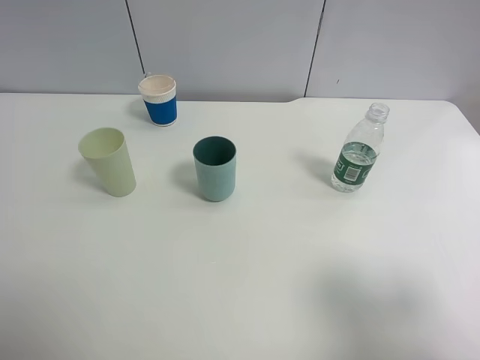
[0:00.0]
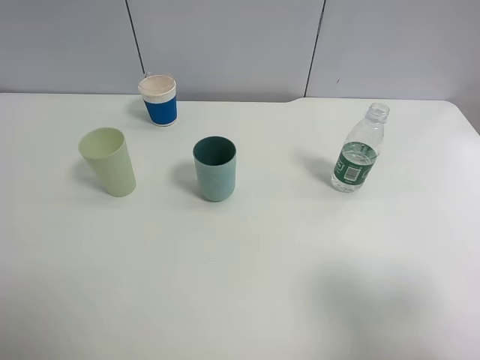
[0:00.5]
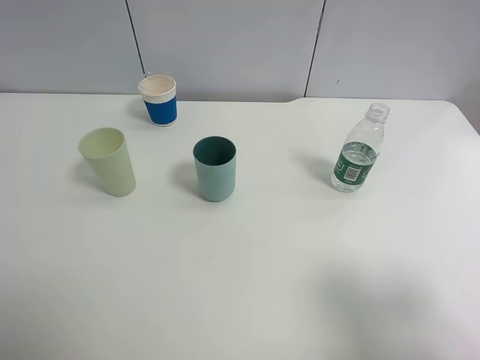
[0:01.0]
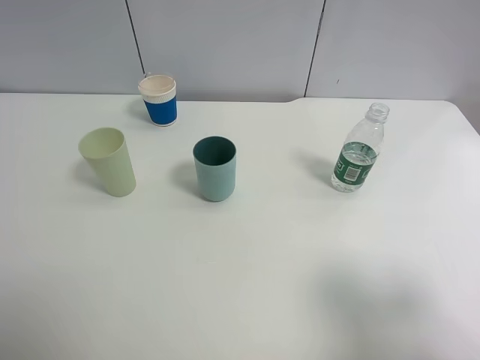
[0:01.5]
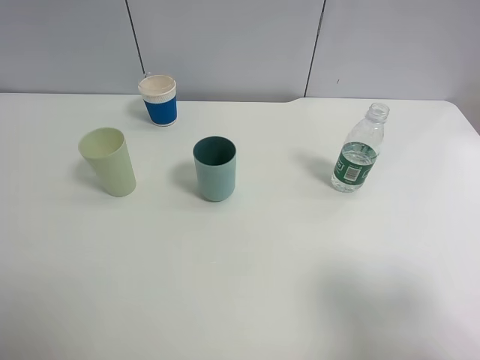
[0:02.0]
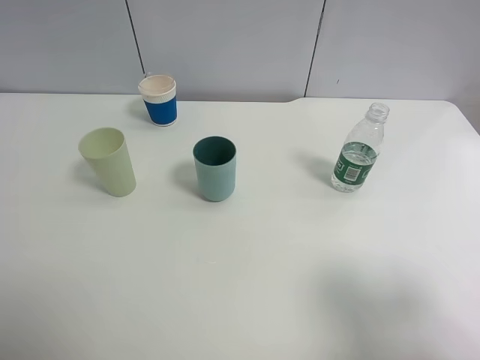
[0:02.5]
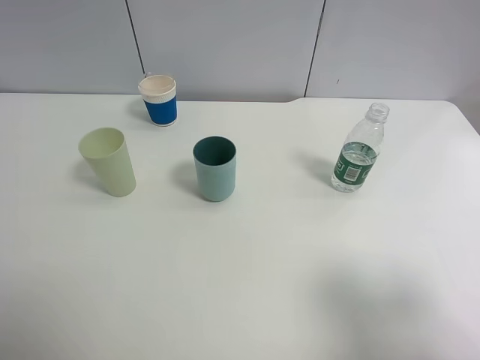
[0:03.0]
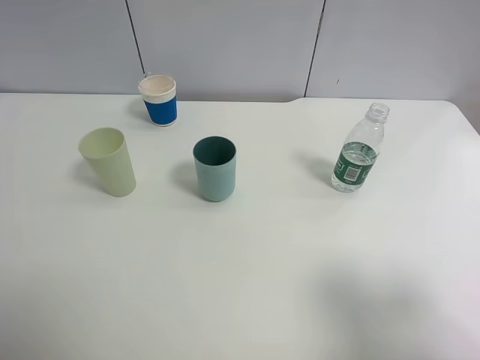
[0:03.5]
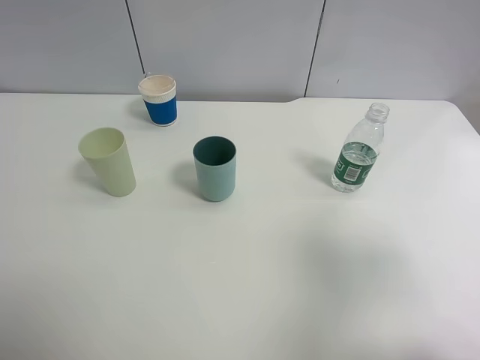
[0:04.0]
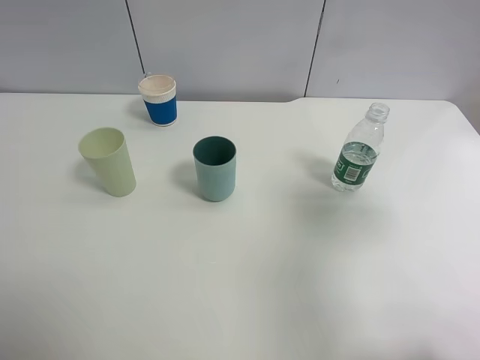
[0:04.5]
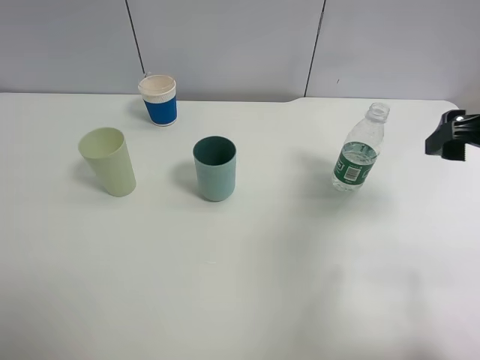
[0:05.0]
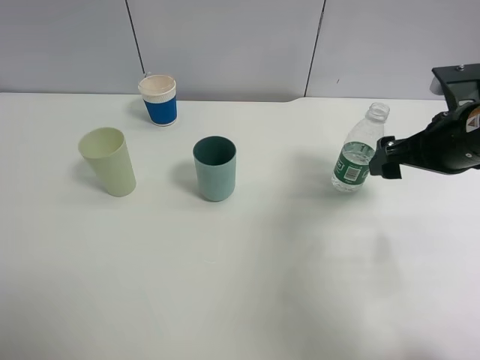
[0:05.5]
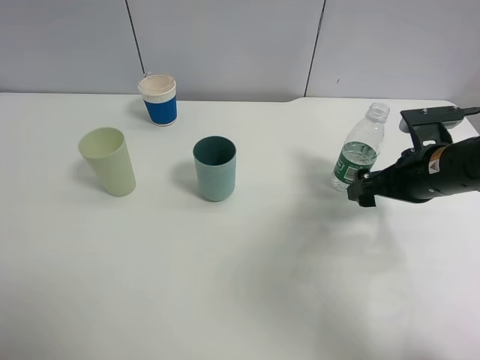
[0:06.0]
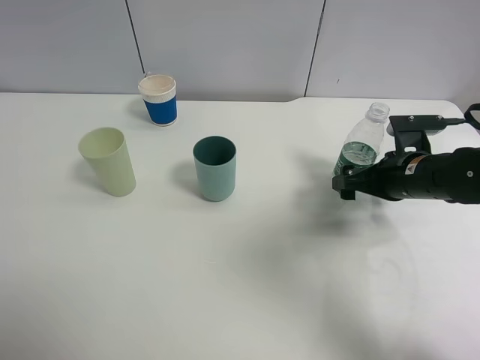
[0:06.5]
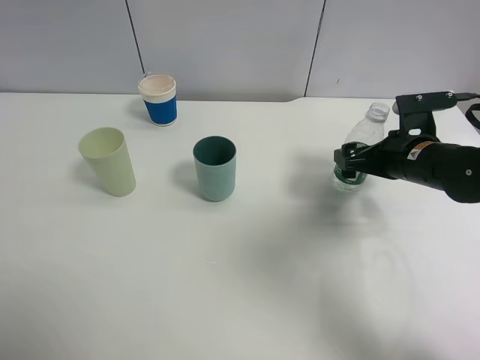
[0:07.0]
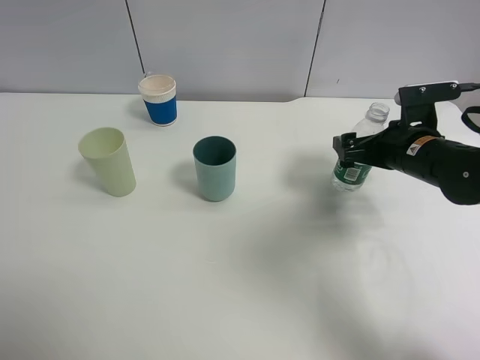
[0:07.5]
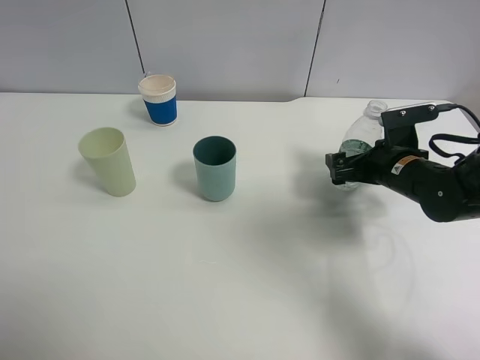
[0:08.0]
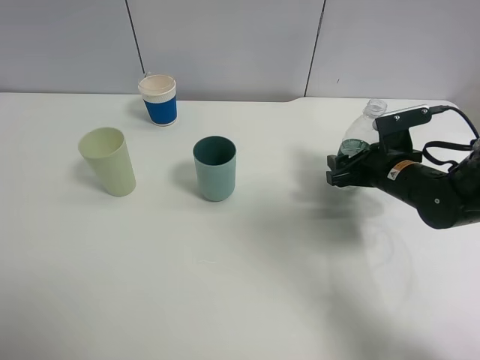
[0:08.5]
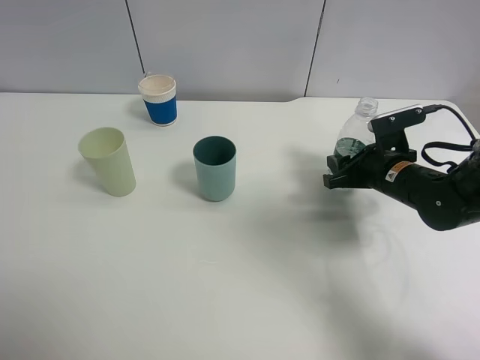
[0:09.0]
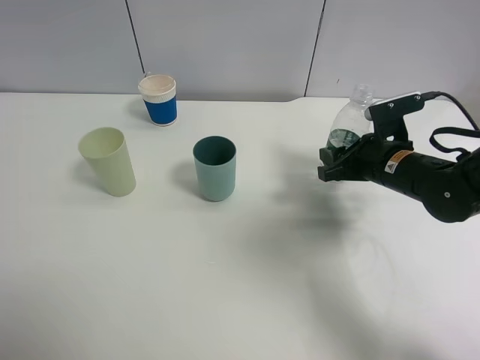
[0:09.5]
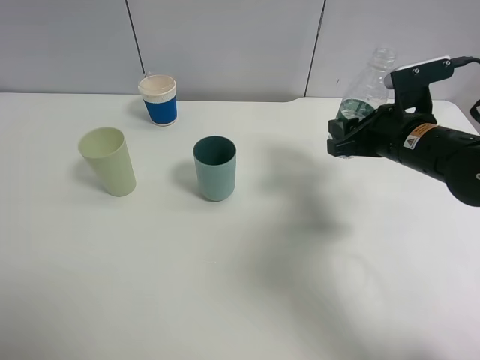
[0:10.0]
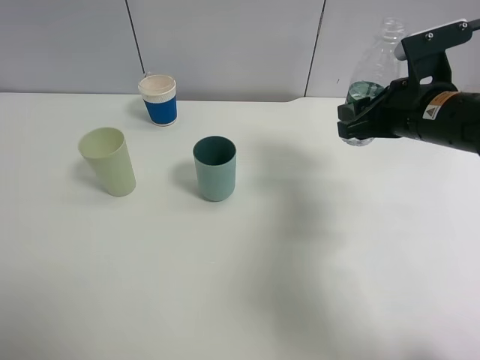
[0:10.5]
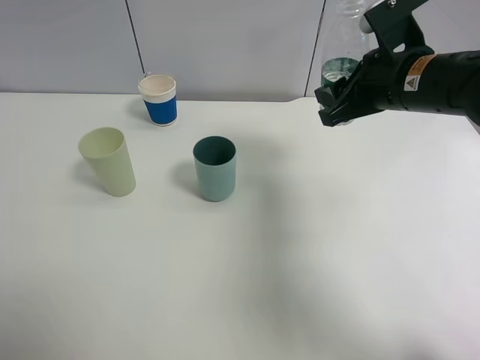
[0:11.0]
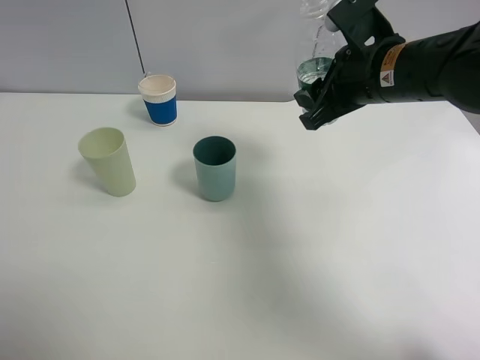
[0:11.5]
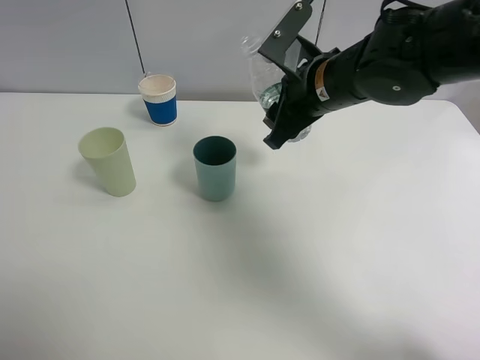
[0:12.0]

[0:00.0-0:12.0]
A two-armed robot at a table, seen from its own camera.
Task of the whole recording: use a clamp to hold the bottle of the drink, pour the beverage into a random cup, then clamp the cup containing the drink and pour the drink into another random cup.
Step, 0:00.0 to 0:09.0: Pick up the water bottle with right gripper.
0:00.0 to 0:02.0: Both grippers stay about where they are.
0:02.0 to 0:04.0: The right gripper shifts about 5 cm forward.
0:04.0 to 0:06.0: The right gripper shifts about 25 cm forward and downward, and opens.
0:06.0 to 0:08.0: The right gripper heads downward, covering approximately 5 cm.
0:08.0 to 0:10.0: The right gripper heads upward, covering about 5 cm, and closes its fingers.
0:10.0 to 0:12.0: The right gripper is displaced to the left and upward by about 15 cm.

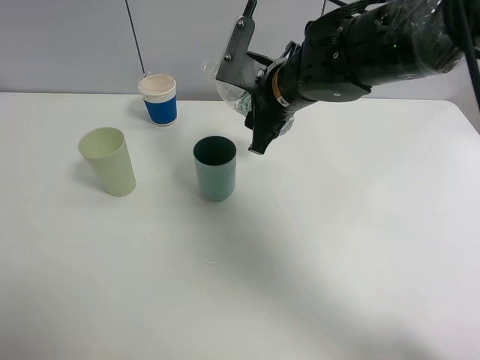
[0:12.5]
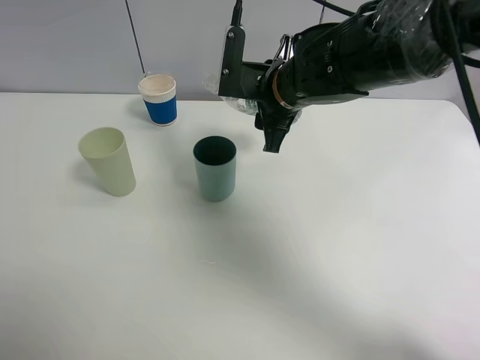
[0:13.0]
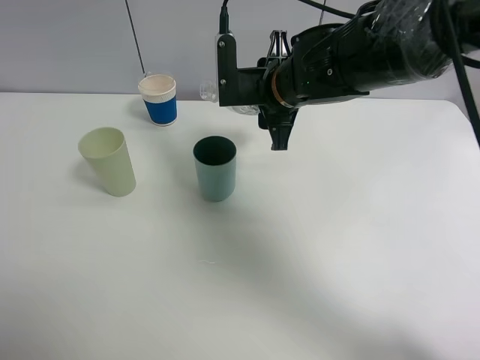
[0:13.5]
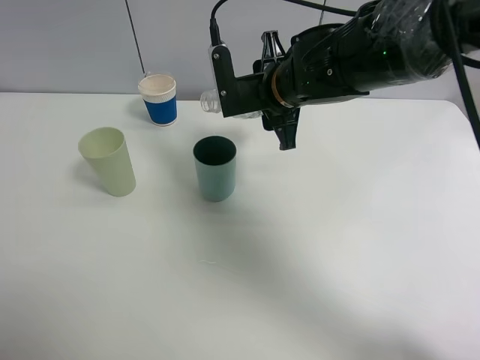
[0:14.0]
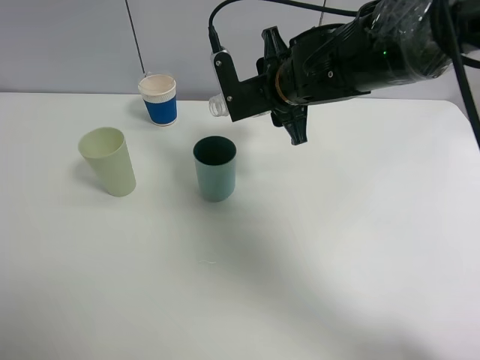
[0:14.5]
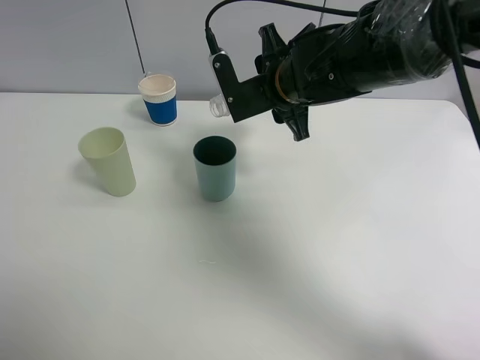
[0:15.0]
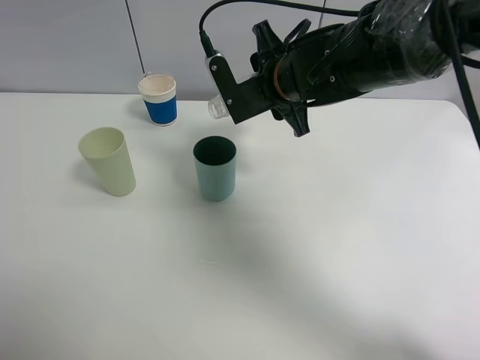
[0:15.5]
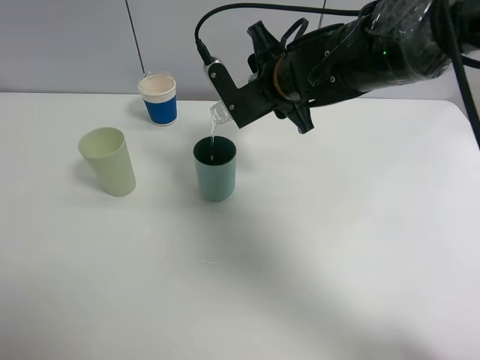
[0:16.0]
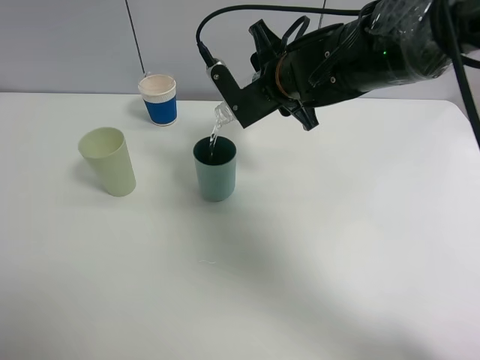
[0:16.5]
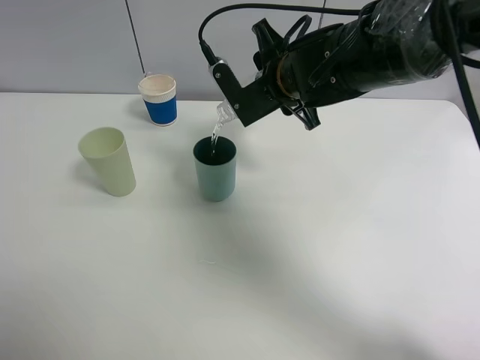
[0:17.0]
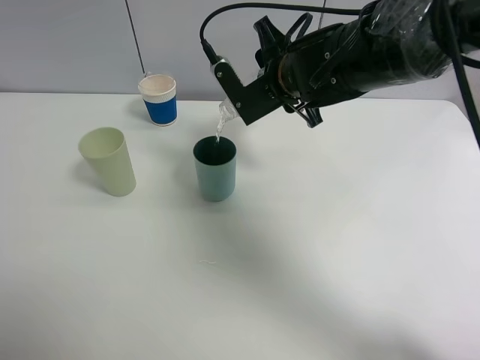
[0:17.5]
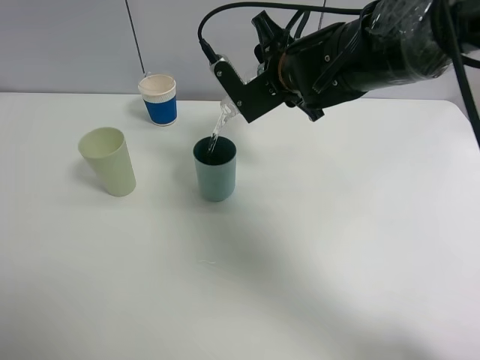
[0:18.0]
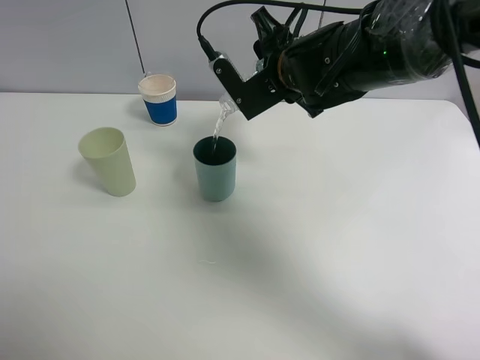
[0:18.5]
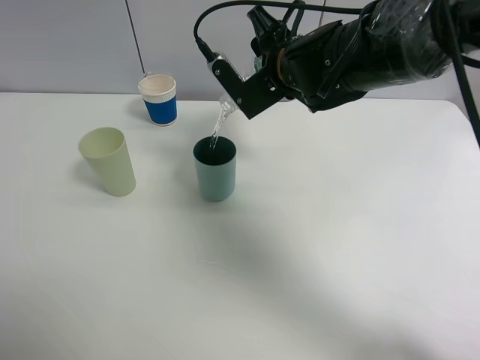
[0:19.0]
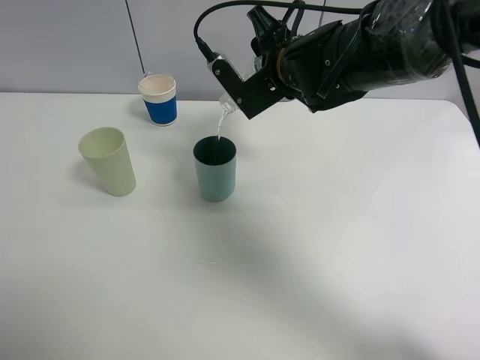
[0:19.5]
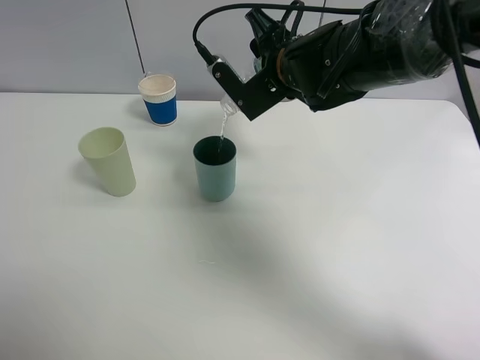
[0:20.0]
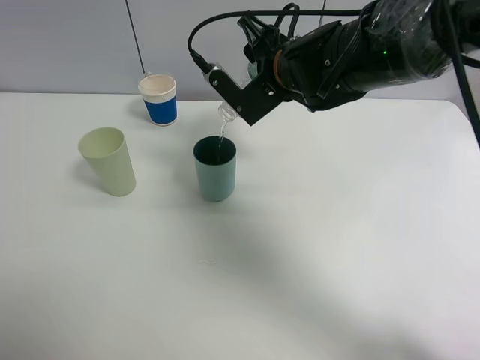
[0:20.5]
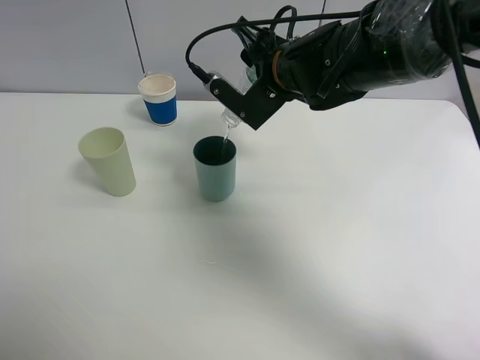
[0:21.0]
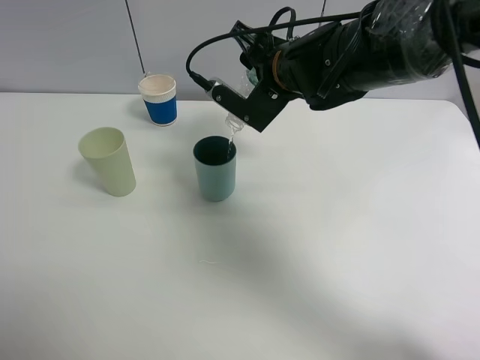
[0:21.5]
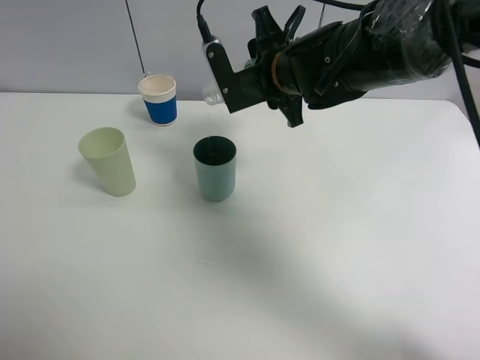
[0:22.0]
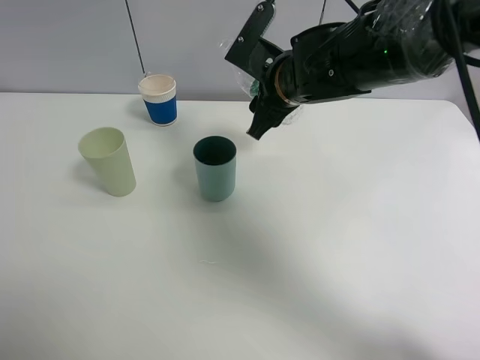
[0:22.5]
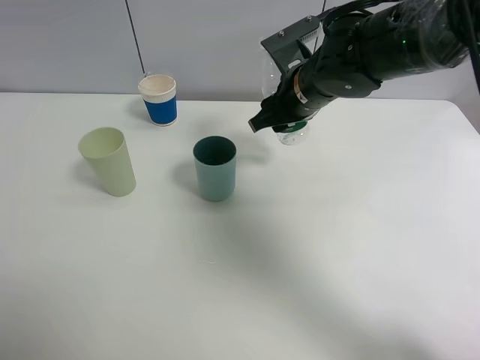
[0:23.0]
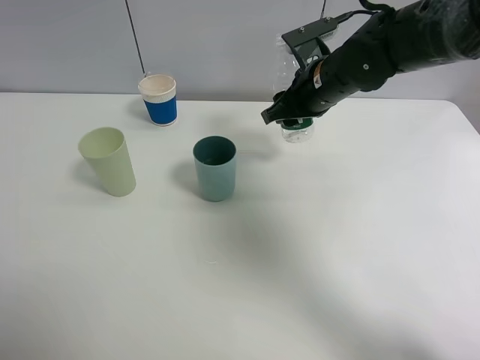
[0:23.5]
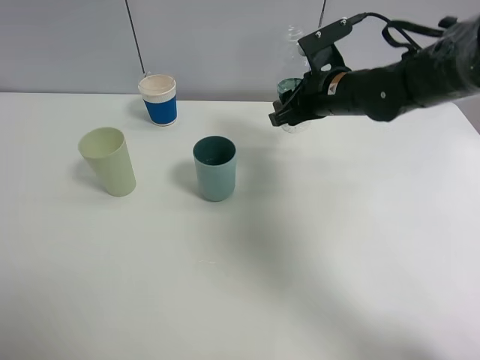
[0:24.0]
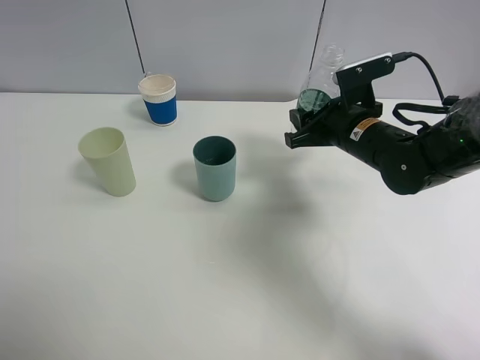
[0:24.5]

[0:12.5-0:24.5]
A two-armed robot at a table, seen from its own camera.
Task of the whole recording: use a clamp to hold the bottle of the drink, pour the beverage into a random cup, then clamp the cup containing the drink and pour the drink into another random cup.
Step, 0:12.5 to 0:22.0: Pour water into the blue plastic cup with right gripper.
0:14.5 to 0:16.5: The grippers move only a little.
0:16.5 to 0:20.5: There are only small adjustments of the grippers.
0:22.5 to 0:24.5: The right gripper moves to the right and downward, approximately 10 cm.

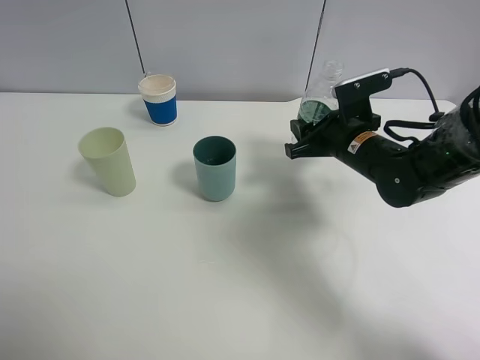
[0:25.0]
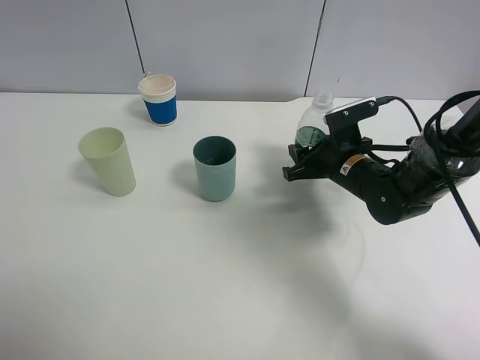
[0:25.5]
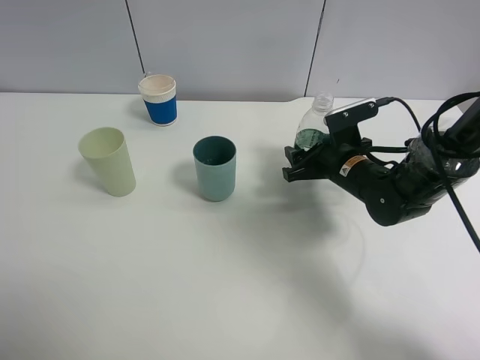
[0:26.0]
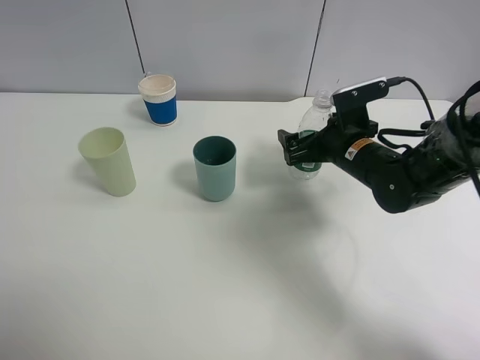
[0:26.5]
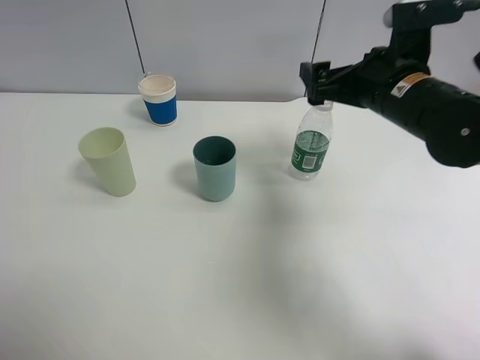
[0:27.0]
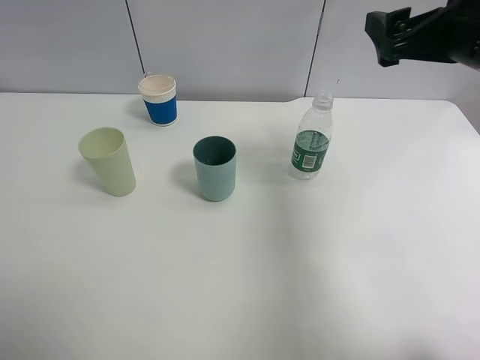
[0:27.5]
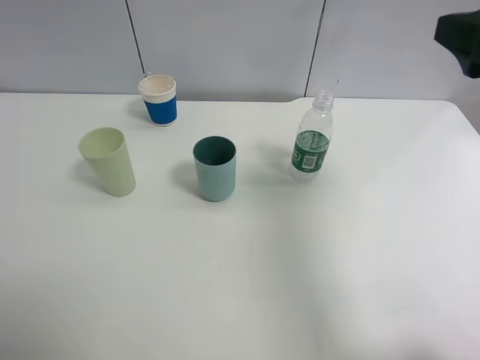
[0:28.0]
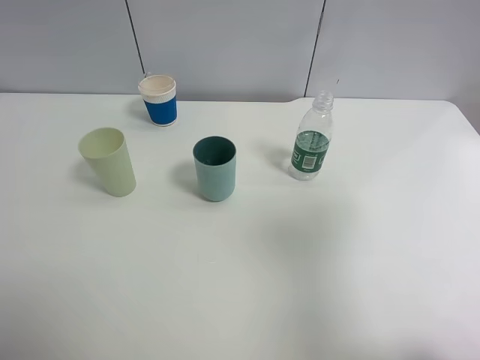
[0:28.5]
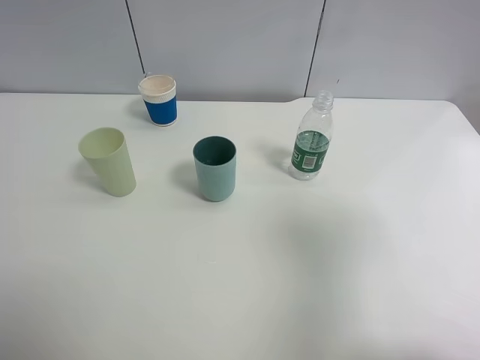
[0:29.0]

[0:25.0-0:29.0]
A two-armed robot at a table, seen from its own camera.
Task of the whole recording: use a clamp to hold the bottle of the drink, pour the beverage into a random cup, then clamp the cup containing the drink and pour the drink into another random cup.
0:25.0 to 0:27.0: The right gripper shifts some 10 cm upward, and opens its fingers.
0:27.0 to 0:29.0: The right gripper travels backward, to the right and upward by about 25 cm.
